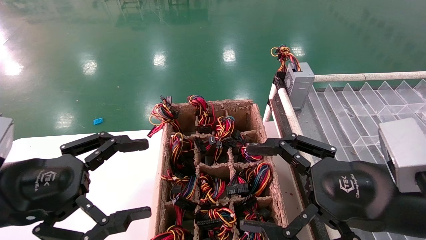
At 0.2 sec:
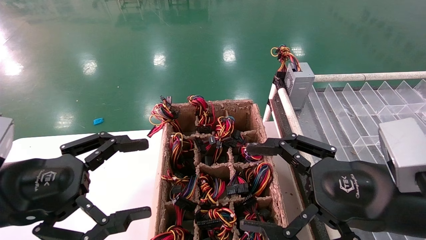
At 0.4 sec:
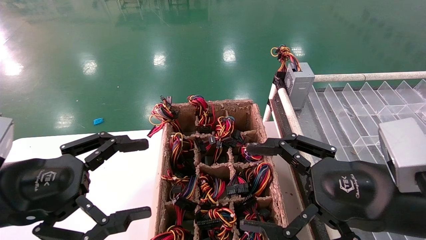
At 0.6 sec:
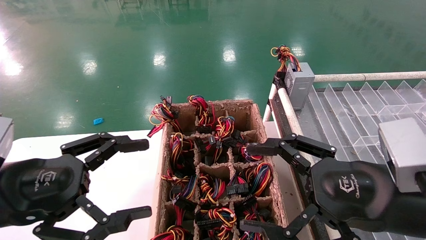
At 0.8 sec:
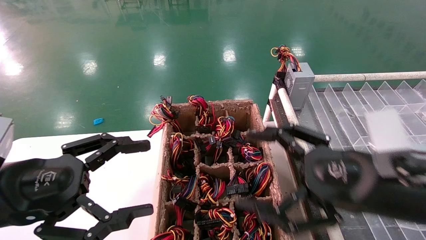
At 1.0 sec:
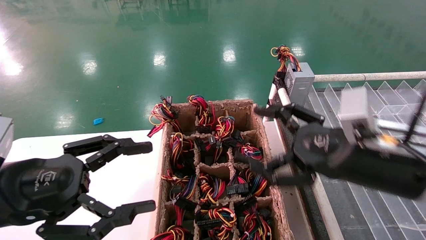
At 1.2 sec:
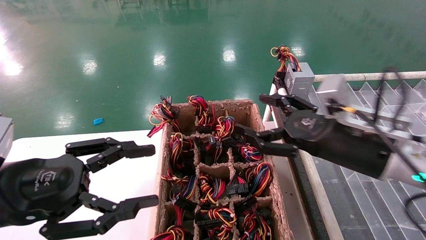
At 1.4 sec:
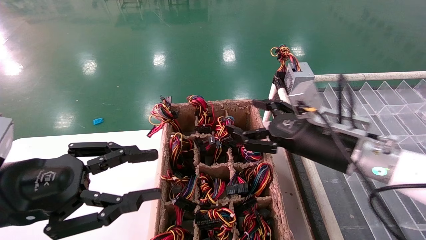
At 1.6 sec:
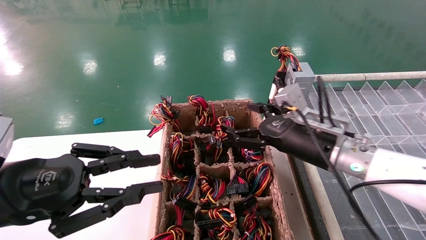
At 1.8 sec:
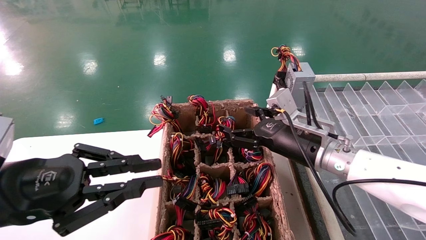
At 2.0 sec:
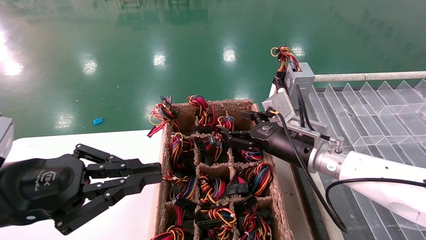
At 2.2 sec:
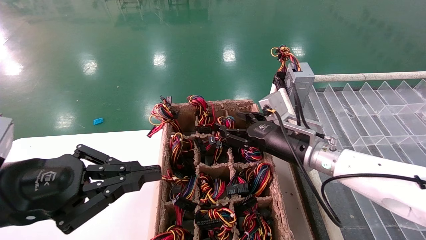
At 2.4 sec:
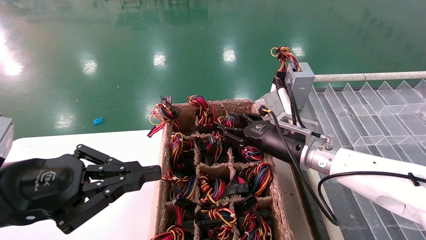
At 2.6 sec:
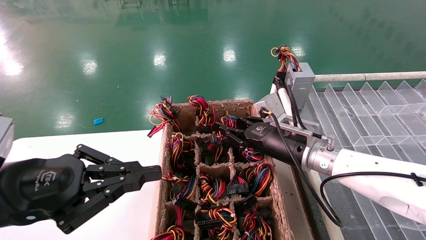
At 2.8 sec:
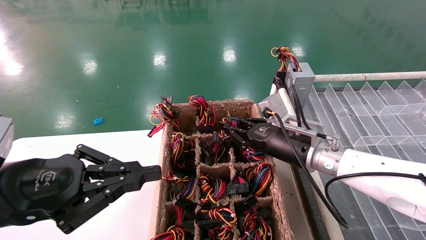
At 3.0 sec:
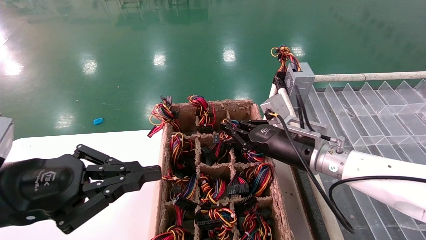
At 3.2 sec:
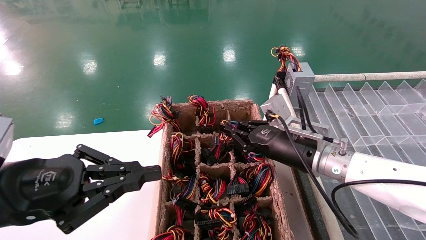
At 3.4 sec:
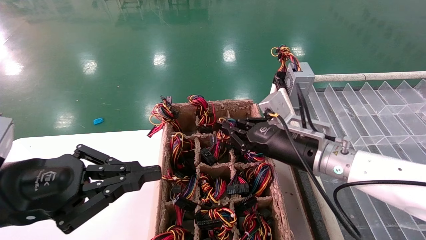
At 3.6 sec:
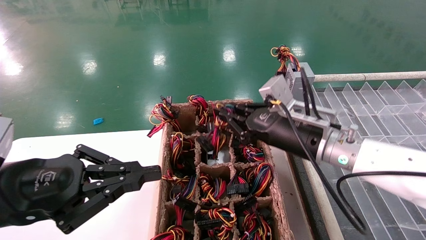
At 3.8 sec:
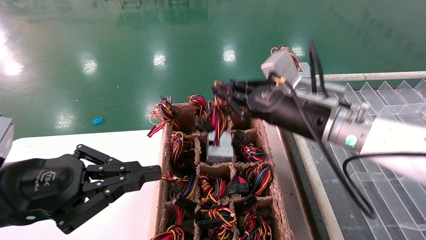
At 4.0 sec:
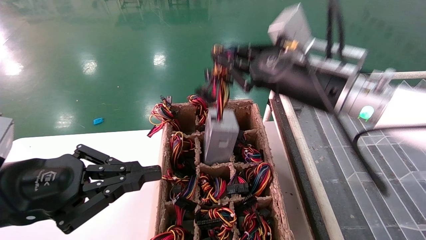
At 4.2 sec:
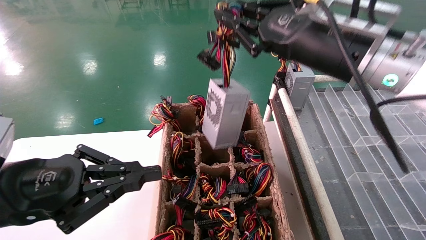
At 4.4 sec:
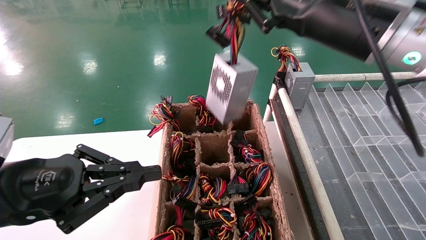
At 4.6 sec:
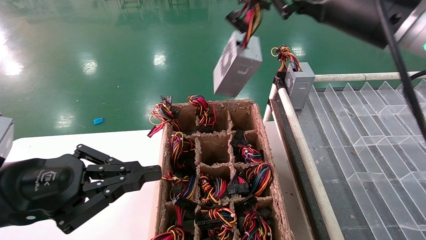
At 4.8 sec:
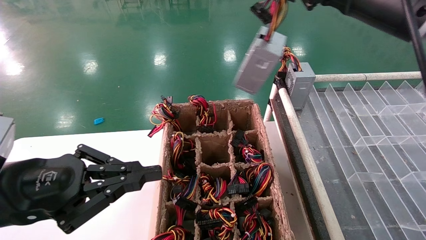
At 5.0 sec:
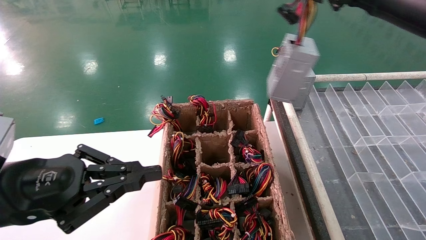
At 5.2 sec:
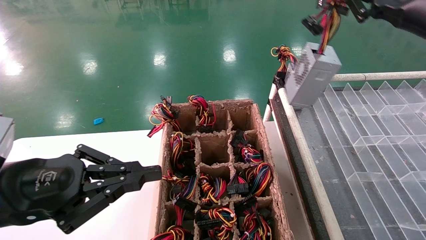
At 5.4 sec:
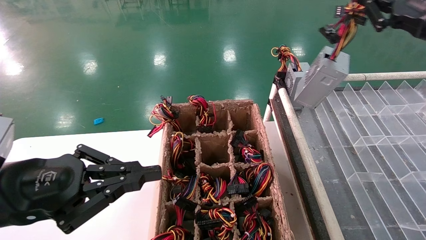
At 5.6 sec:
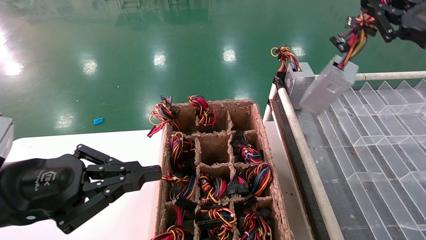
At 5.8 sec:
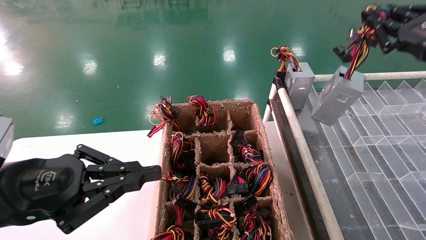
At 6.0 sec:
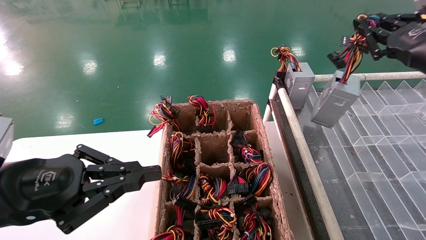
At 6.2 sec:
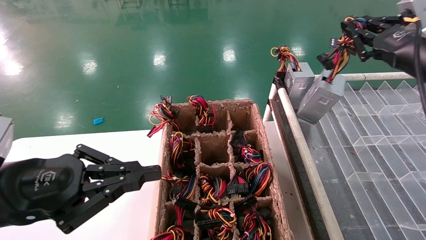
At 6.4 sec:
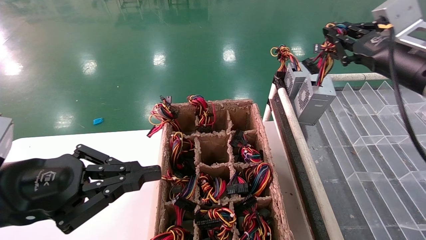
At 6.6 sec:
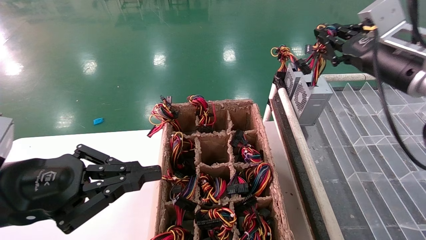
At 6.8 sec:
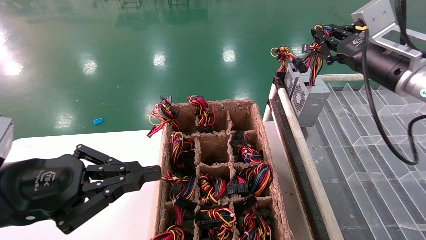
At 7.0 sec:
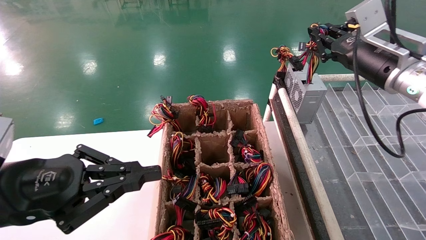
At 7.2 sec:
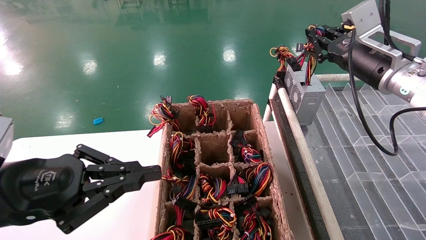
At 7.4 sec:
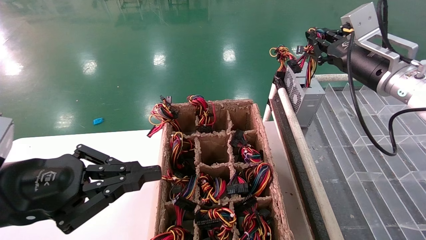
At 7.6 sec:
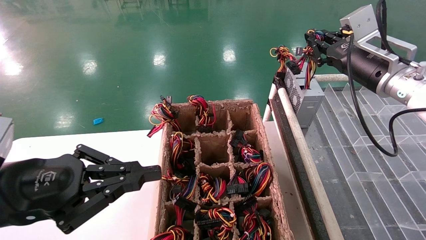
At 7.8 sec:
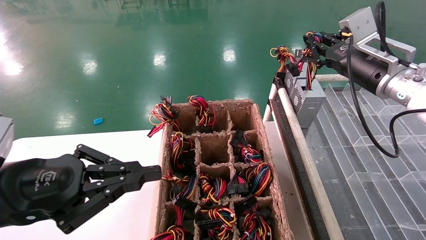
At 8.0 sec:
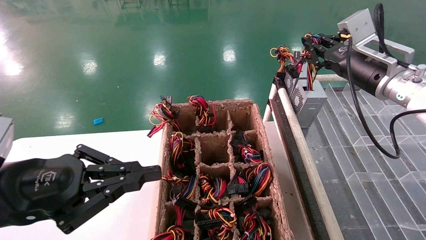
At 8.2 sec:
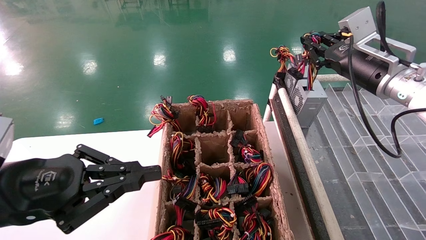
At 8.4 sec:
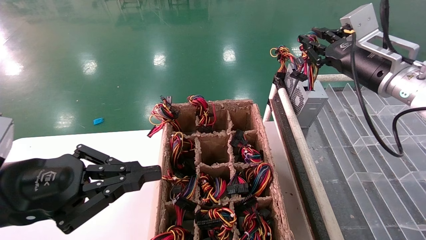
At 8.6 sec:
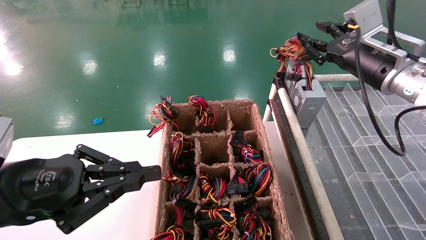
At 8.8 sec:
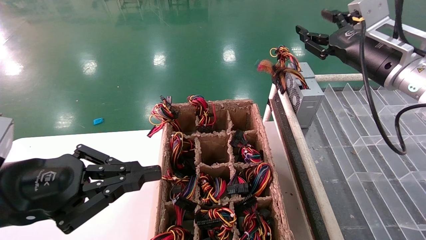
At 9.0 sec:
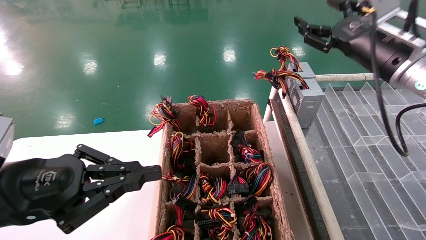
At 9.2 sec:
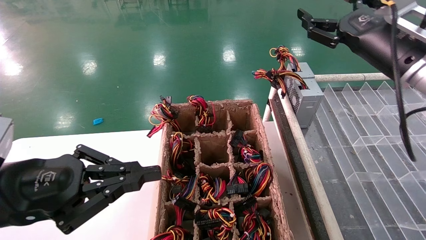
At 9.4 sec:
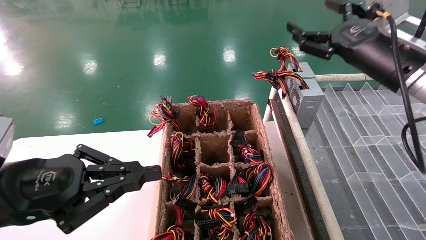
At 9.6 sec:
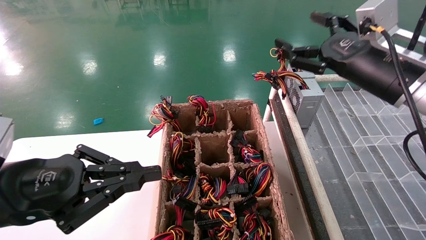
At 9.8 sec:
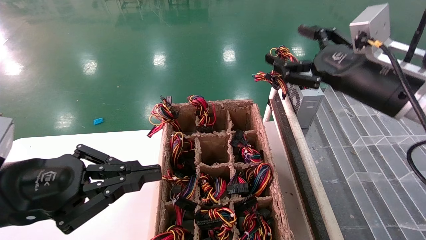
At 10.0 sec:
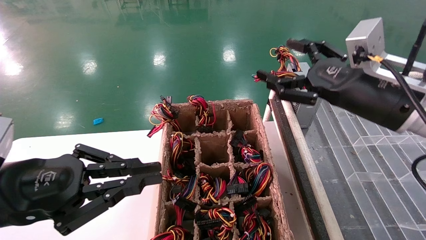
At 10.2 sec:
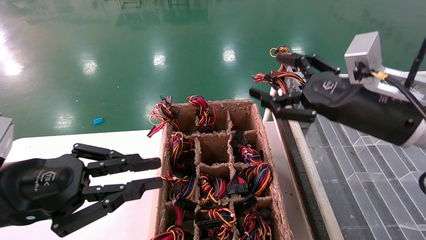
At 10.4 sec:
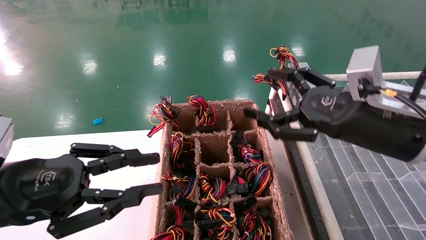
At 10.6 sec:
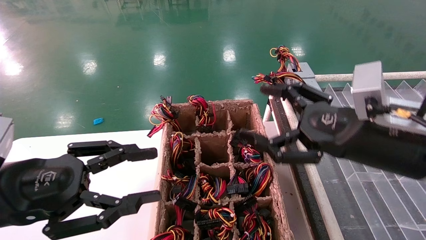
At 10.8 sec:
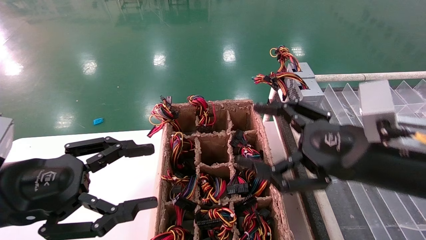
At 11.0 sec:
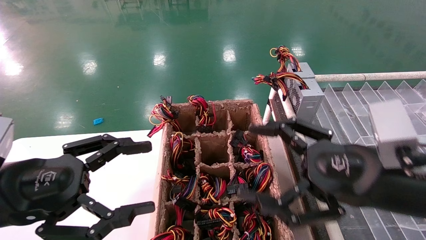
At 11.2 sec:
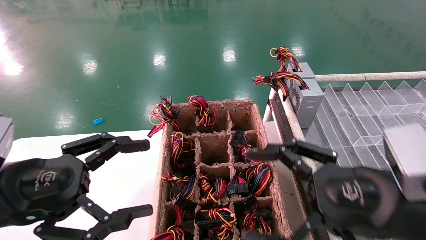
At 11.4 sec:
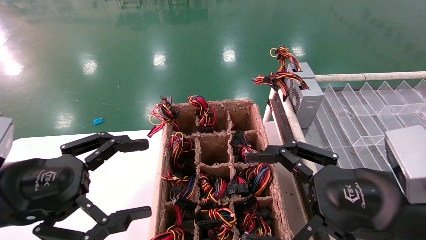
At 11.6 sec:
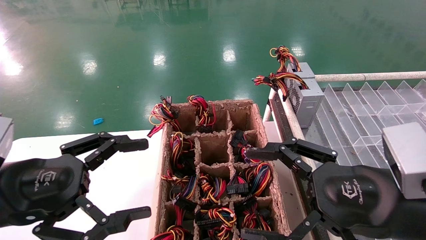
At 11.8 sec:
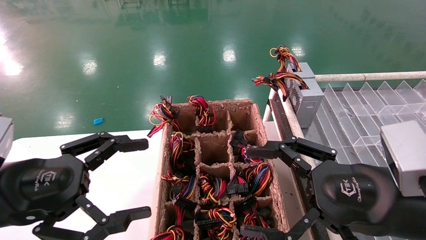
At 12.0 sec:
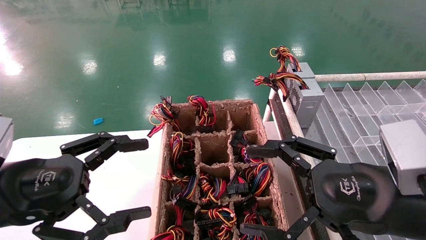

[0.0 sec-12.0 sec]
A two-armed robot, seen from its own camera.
Step, 1.2 sec to 3.0 sec: Grab the main unit power supply from the containment box.
Step, 3.2 sec to 8.4 sec: Place the main unit power supply in the designated area.
0.0 sec to 1.6 sec: The left gripper closes up, while the right gripper moves forward, approximately 15 cm.
1.6 sec to 3.0 sec: The right gripper closes its fingers. Meanwhile the left gripper closes.
3.0 sec to 4.4 sec: The right gripper travels upward by about 20 cm.
4.4 sec to 6.0 sec: The right gripper moves to the right, roughly 15 cm.
6.0 sec to 7.6 sec: The right gripper heads forward, covering some 10 cm.
7.6 sec to 9.0 sec: The right gripper opens up.
9.0 sec to 10.4 sec: The right gripper shifts roughly 10 cm backward and downward, and opens.
10.4 sec to 12.0 sec: The right gripper goes roughly 5 cm backward; the left gripper opens its fingers.

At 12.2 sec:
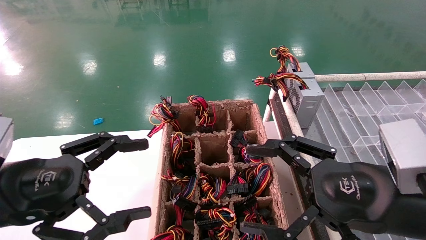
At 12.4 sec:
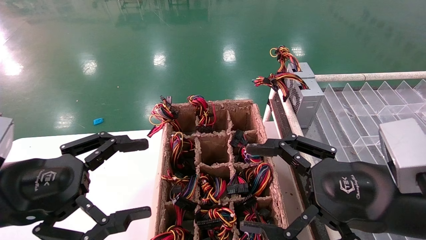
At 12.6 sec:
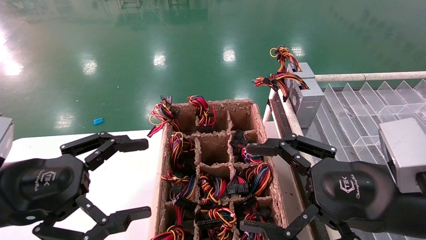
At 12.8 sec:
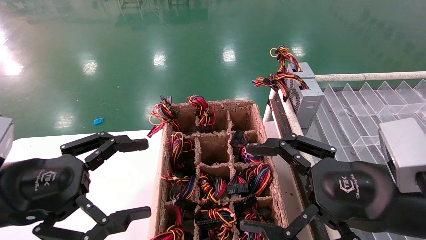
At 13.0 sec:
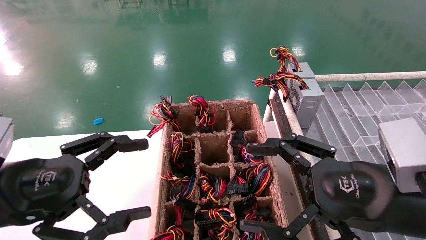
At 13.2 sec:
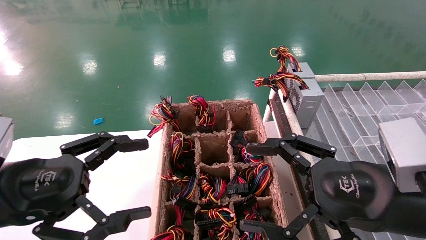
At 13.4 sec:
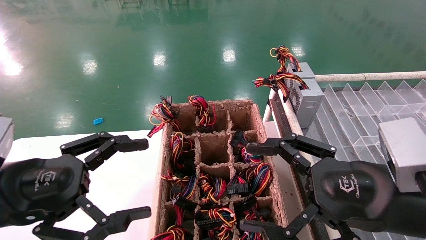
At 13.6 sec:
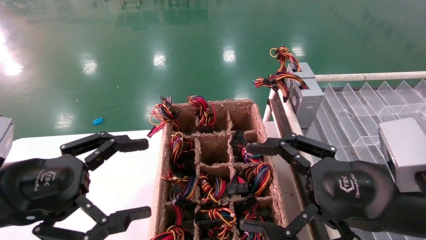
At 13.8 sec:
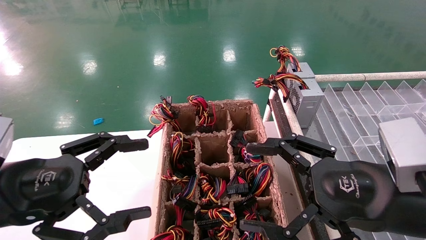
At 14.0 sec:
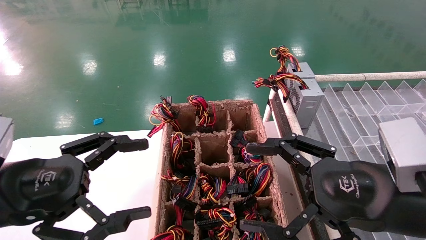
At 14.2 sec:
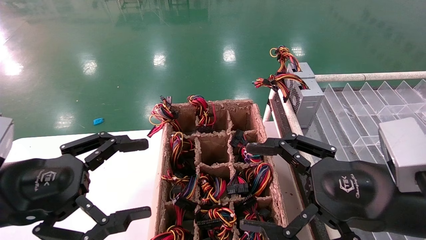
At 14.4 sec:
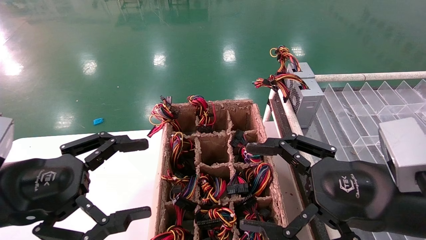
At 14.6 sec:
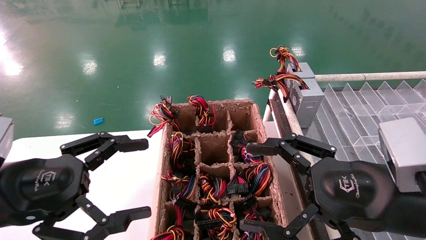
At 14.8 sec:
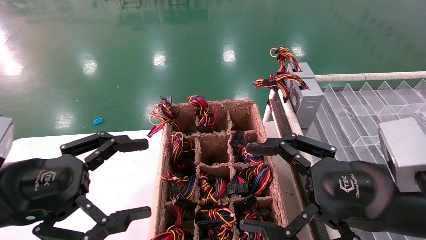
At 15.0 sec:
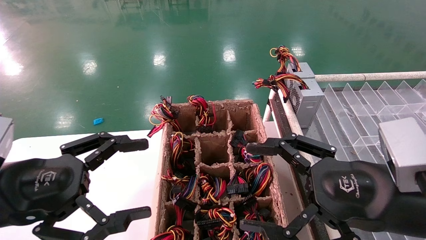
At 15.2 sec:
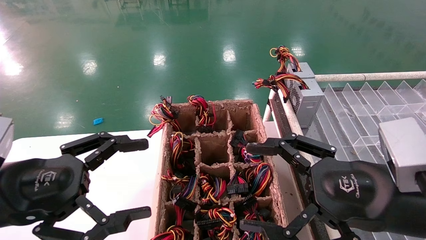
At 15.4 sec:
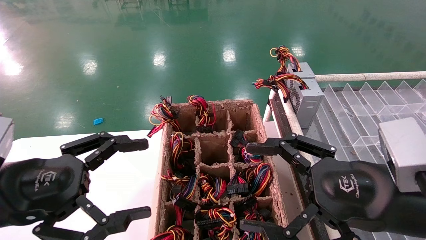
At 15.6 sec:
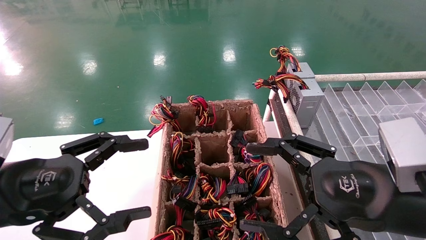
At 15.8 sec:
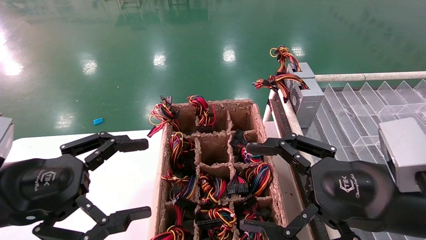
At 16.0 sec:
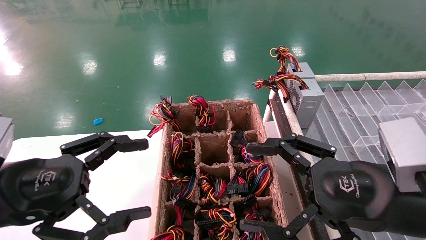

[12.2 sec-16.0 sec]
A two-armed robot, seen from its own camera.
12.2 sec to 16.0 sec: Both grippers stay about where they are.
